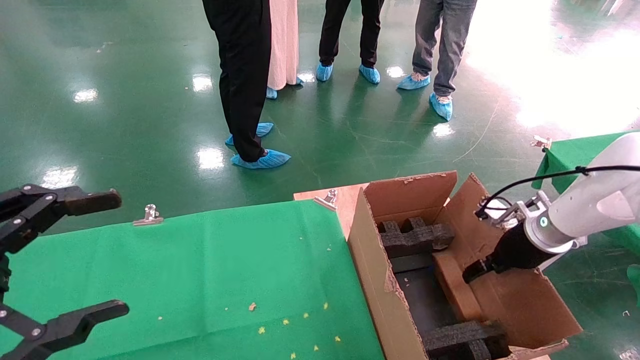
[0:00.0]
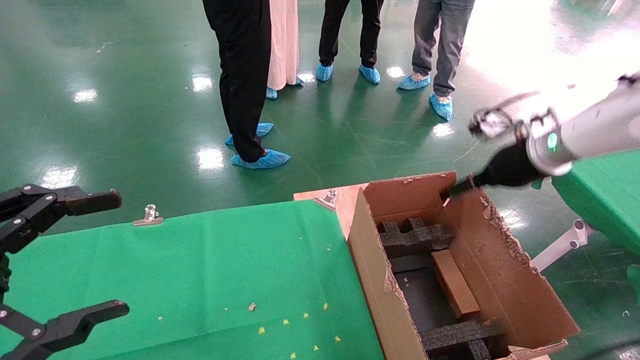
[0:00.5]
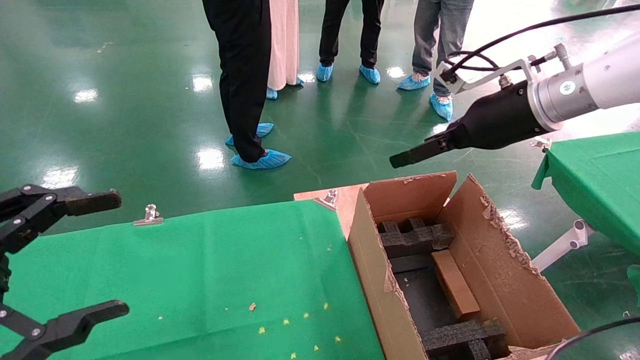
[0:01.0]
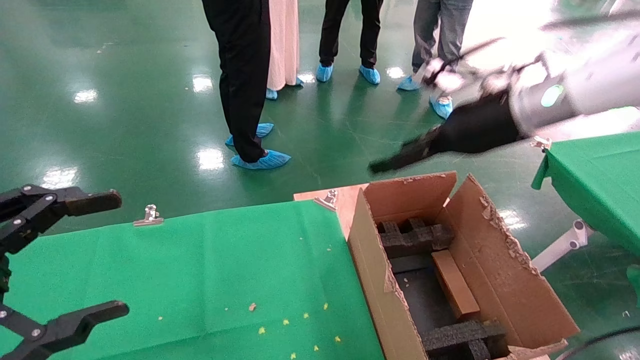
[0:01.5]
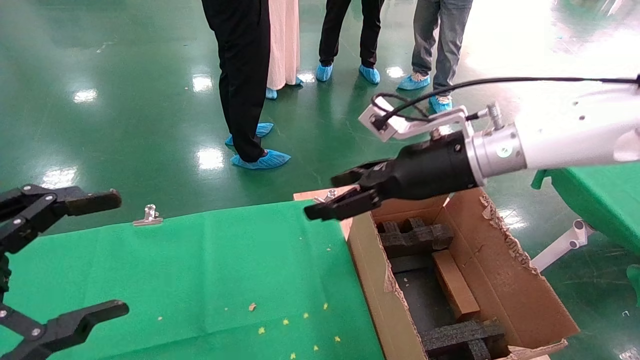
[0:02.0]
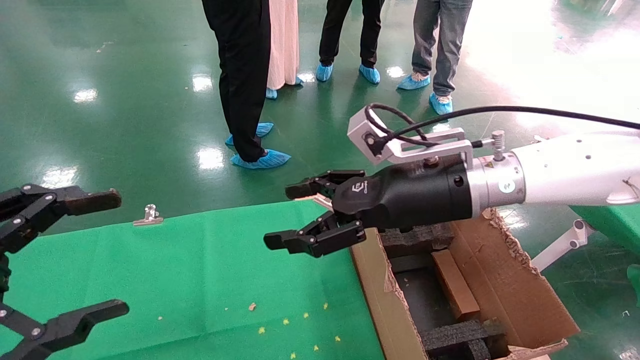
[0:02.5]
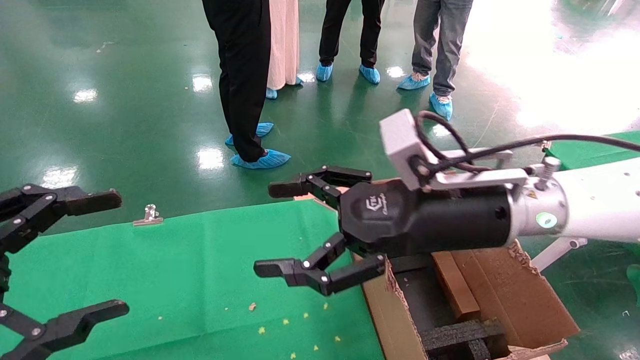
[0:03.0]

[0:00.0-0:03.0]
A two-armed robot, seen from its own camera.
Task of the whole recording: using a robotic arm to pick up a cardboard box and palace it the carton.
0:00.0 to 0:01.5: The right gripper is displaced upward and to the left by approximately 20 cm, and opens.
0:01.5 to 0:03.0: The right gripper travels backward, to the left and downward by about 15 cm.

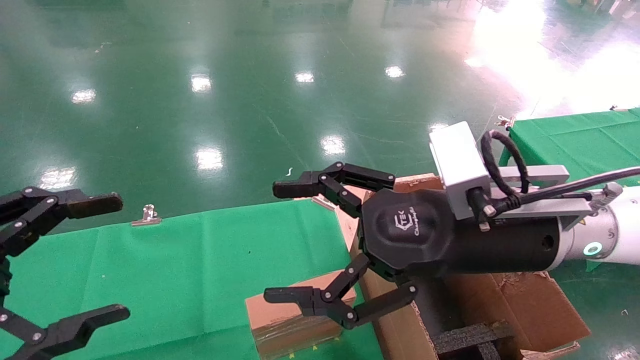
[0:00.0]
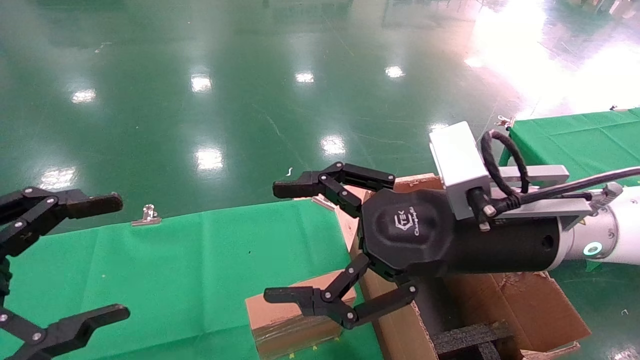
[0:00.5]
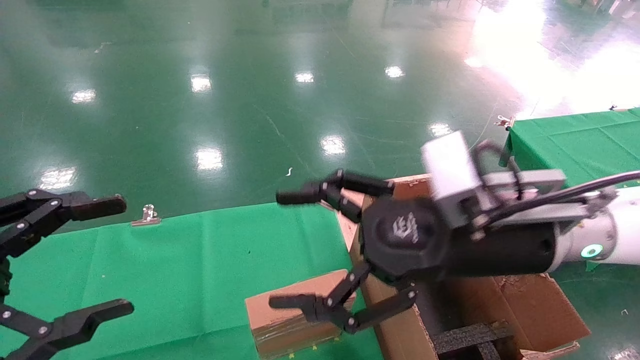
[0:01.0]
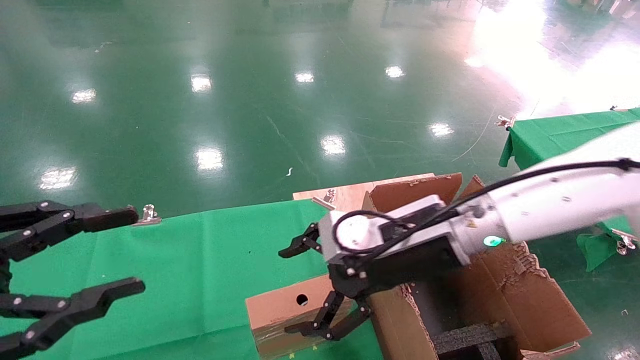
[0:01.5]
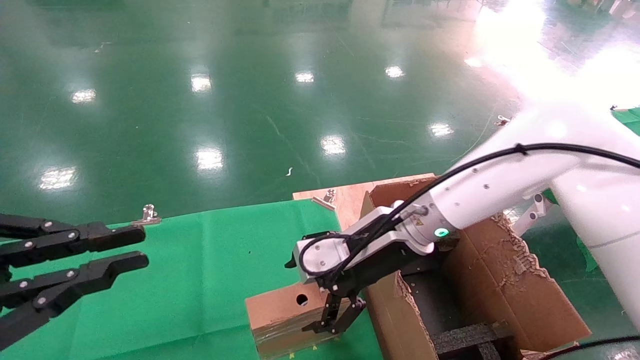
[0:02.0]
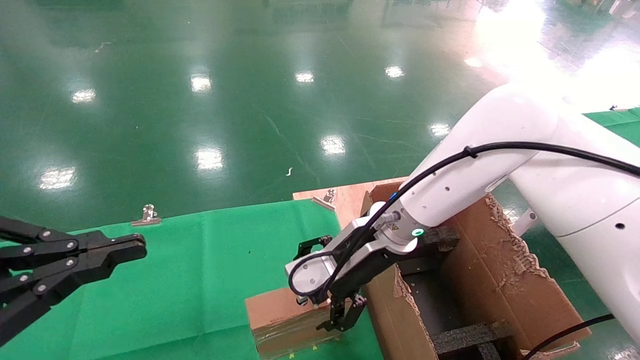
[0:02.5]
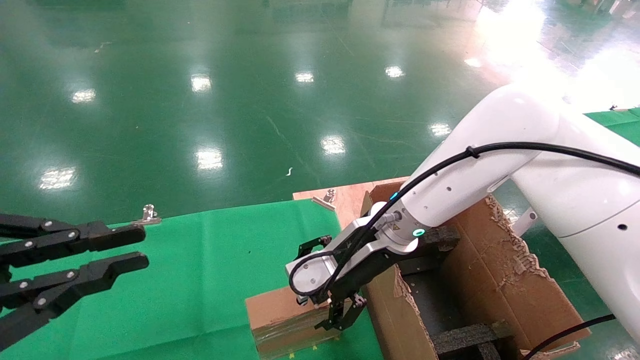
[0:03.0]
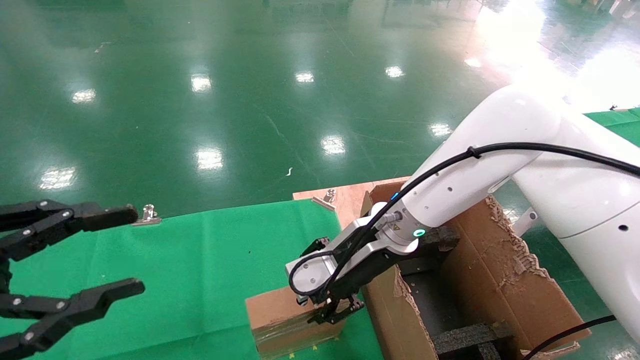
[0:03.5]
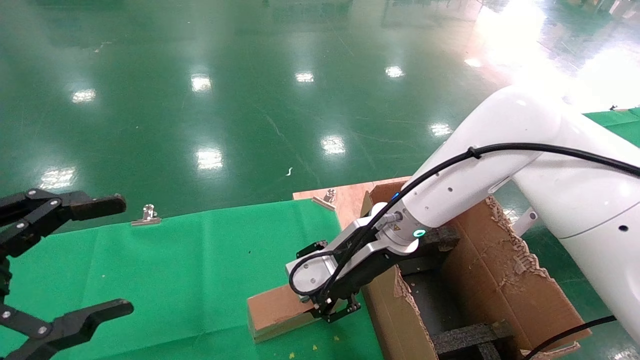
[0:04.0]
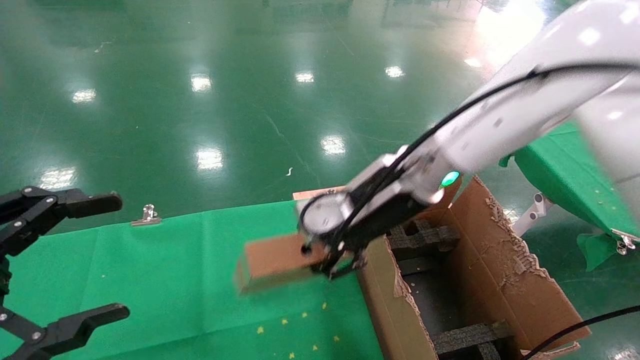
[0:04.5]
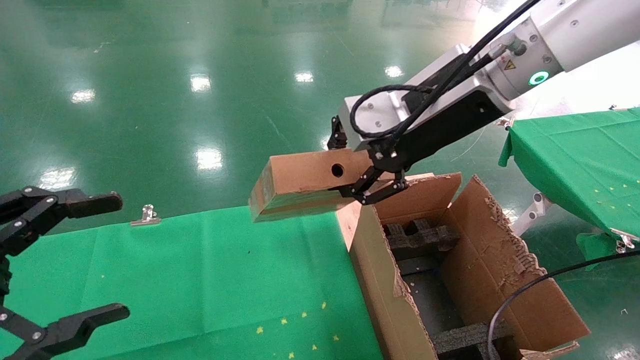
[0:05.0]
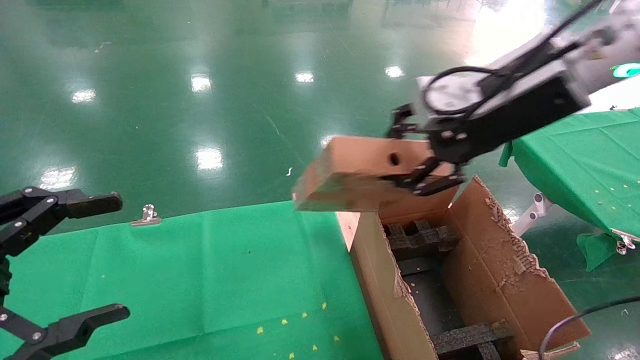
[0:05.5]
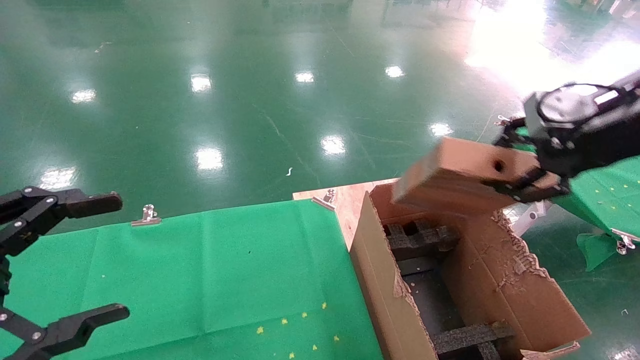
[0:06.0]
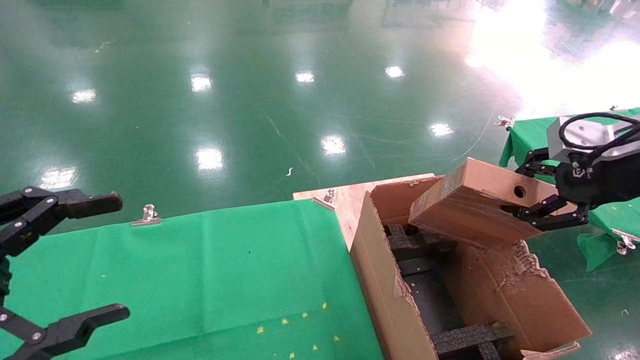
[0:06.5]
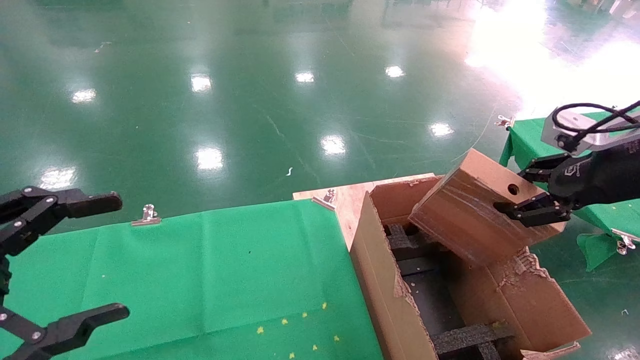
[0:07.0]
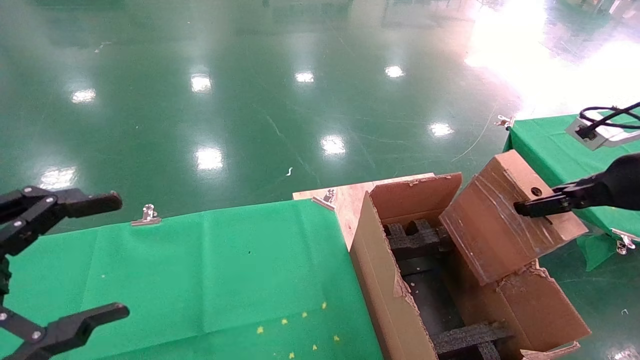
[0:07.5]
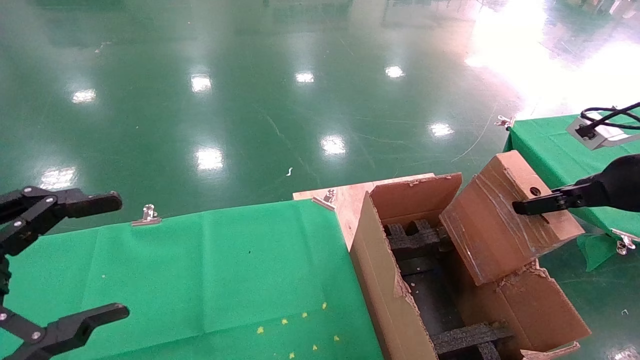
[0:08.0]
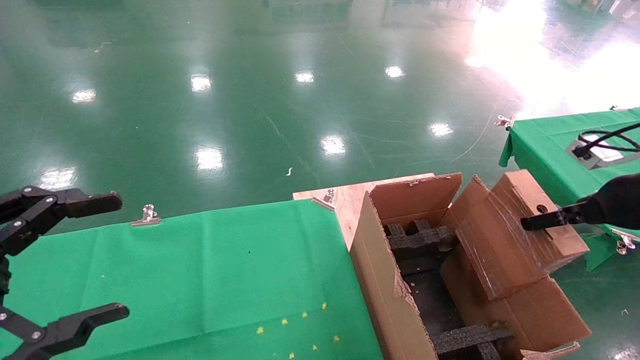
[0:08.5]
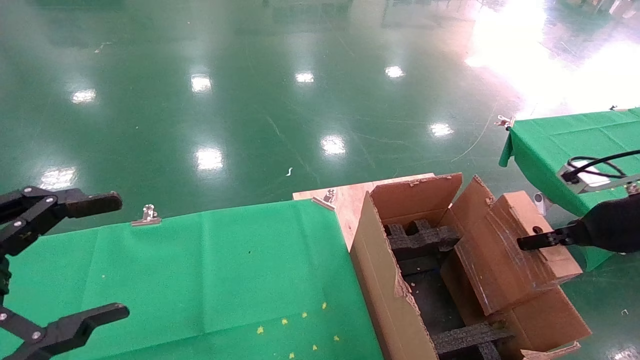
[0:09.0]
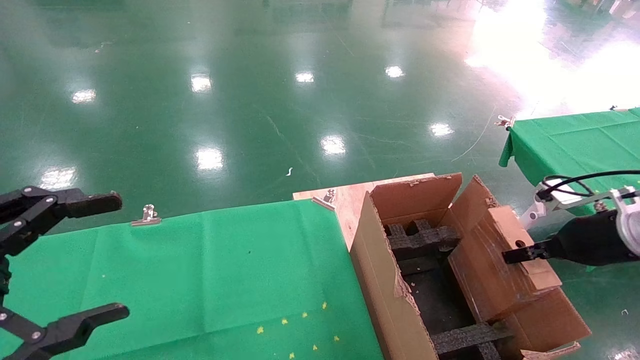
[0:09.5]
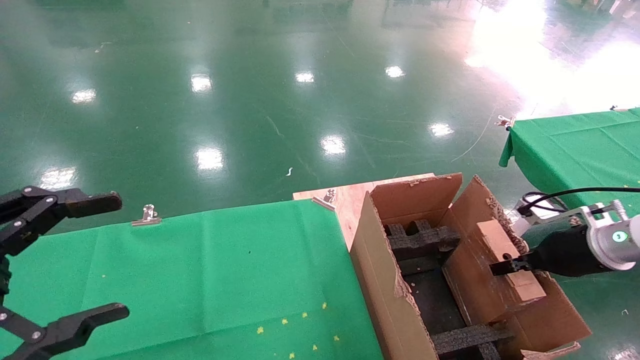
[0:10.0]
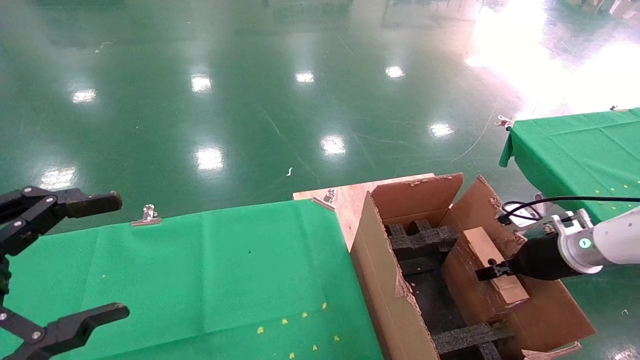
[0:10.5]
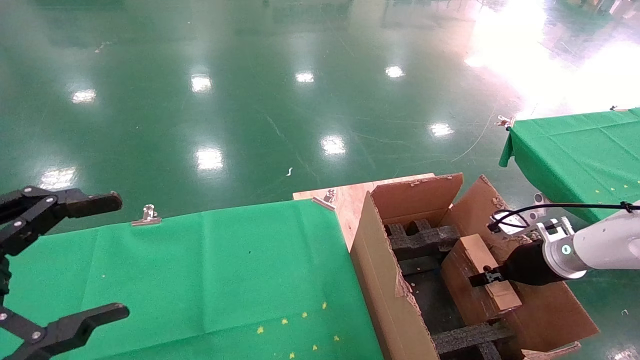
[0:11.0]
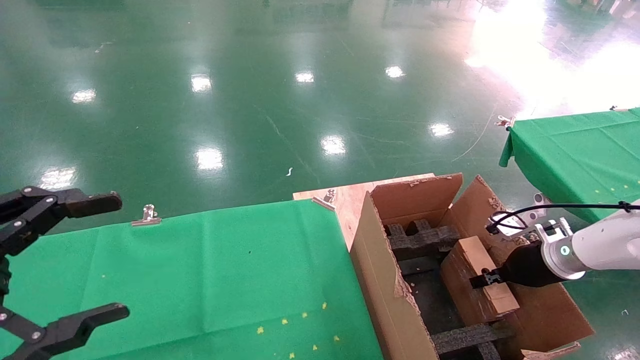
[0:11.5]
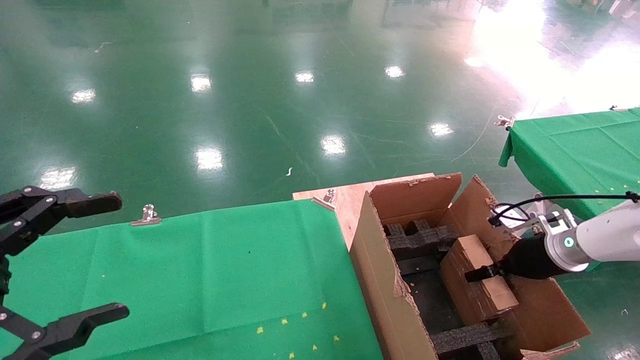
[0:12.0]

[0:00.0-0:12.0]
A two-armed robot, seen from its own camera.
Task of the whole recording: using a robotic arm to pick up a cardboard box and palace it the carton.
Step, 0:01.5 to 0:03.5: Pick up the mouse and the power cord paper box.
0:00.0 to 0:02.0: The left gripper closes its fingers, while the right gripper heads forward, to the left and downward, covering about 15 cm.
0:02.0 to 0:04.0: The left gripper opens its fingers. The right gripper closes its fingers.
0:04.0 to 0:06.0: The right gripper is displaced to the right and upward by approximately 30 cm.
0:06.0 to 0:08.0: The right gripper travels to the right and downward by approximately 10 cm.
0:08.0 to 0:10.0: The right gripper travels downward and forward by roughly 15 cm.
0:10.0 to 0:12.0: The right gripper shifts by some 5 cm.

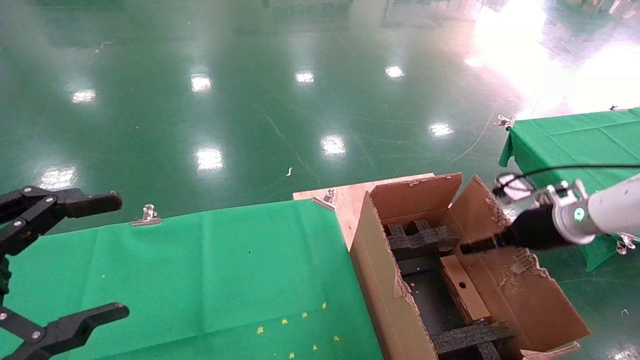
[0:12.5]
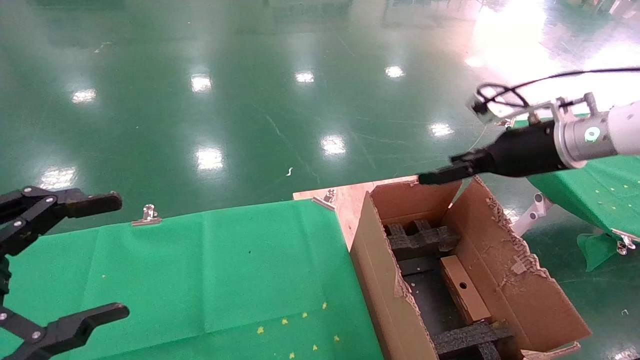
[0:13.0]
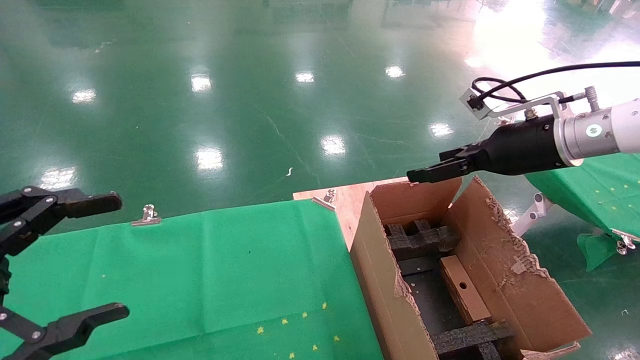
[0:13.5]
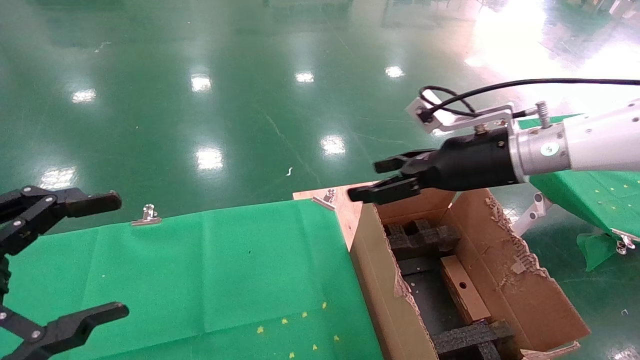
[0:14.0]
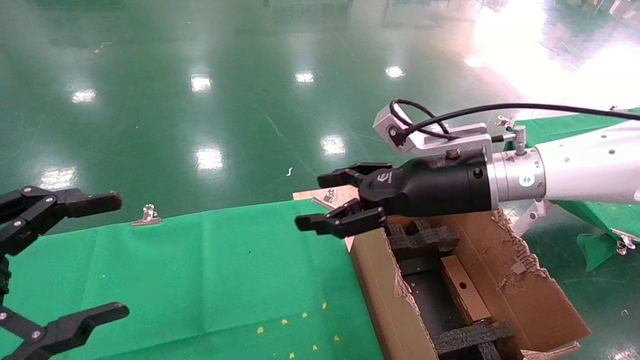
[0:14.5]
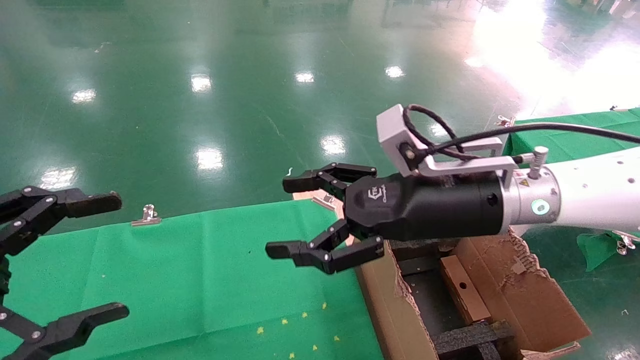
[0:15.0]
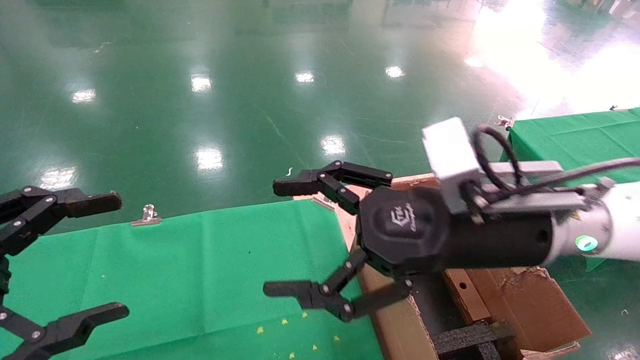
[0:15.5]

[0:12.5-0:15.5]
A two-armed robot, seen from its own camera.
Task of the whole recording: using a robotic arm to pick up a cardboard box and palace it the carton.
0:12.5 to 0:14.0: The right gripper shifts some 20 cm to the left and upward.
0:14.0 to 0:15.5: The right gripper is displaced backward and to the left by roughly 15 cm.
